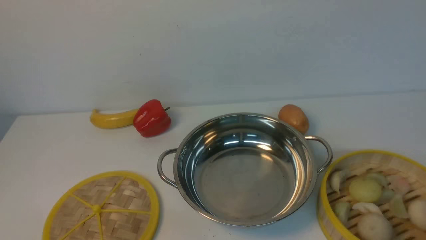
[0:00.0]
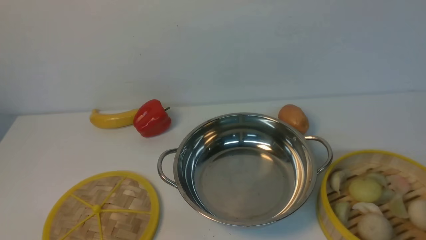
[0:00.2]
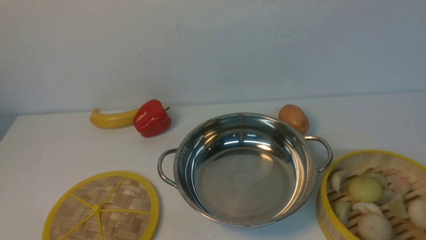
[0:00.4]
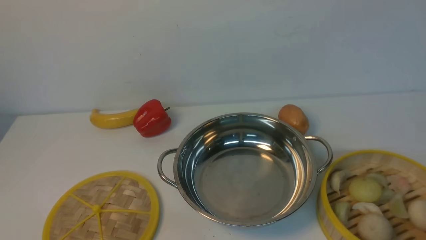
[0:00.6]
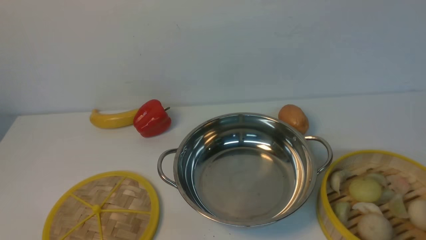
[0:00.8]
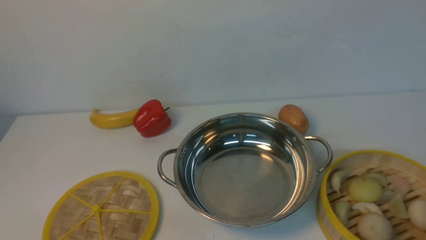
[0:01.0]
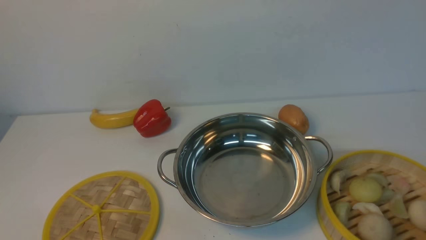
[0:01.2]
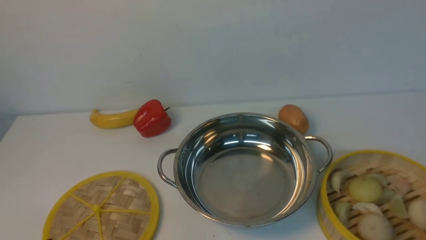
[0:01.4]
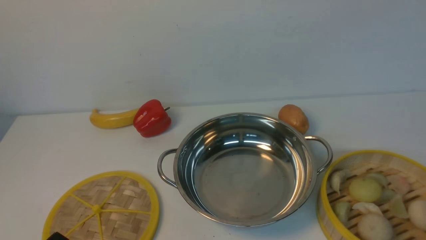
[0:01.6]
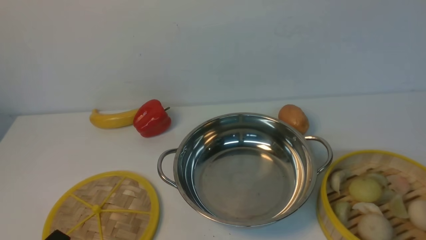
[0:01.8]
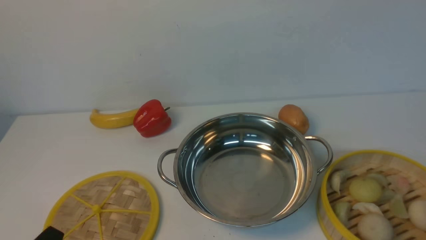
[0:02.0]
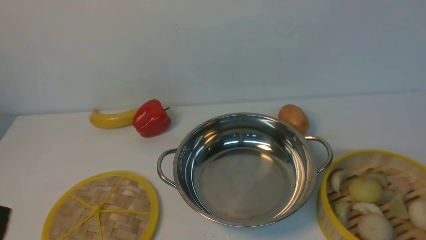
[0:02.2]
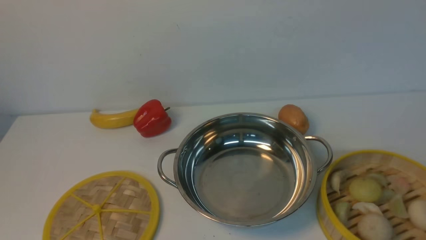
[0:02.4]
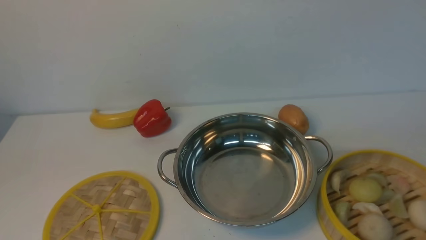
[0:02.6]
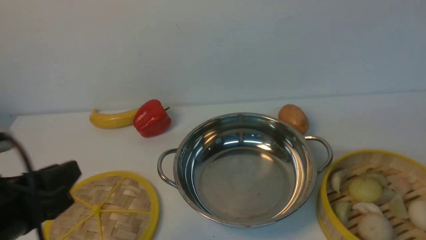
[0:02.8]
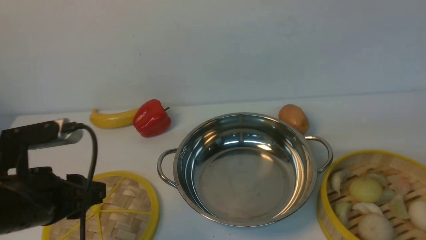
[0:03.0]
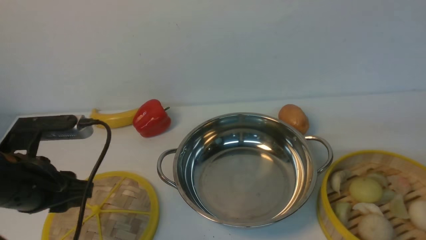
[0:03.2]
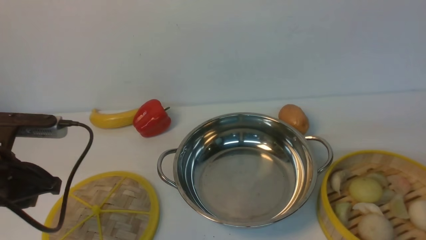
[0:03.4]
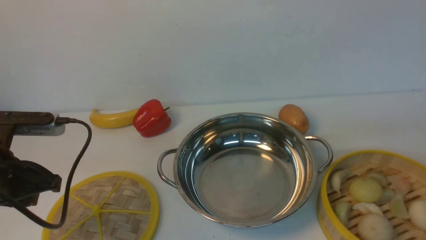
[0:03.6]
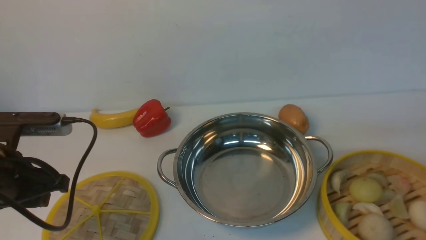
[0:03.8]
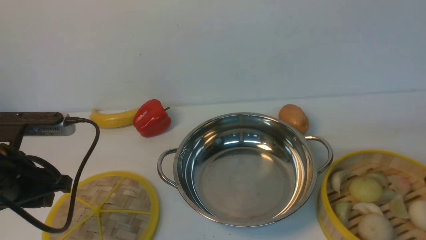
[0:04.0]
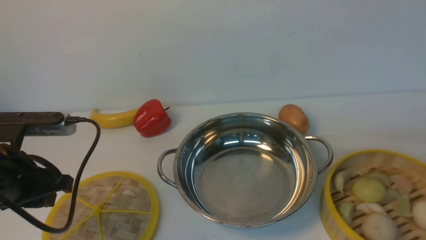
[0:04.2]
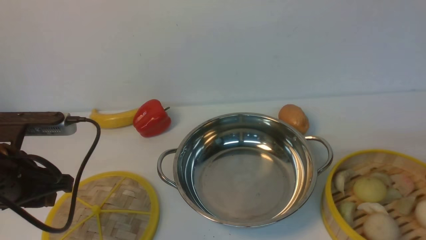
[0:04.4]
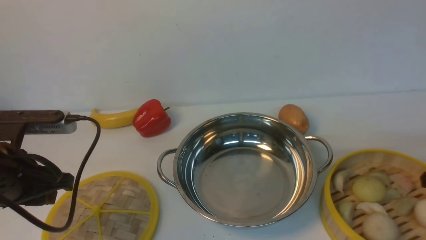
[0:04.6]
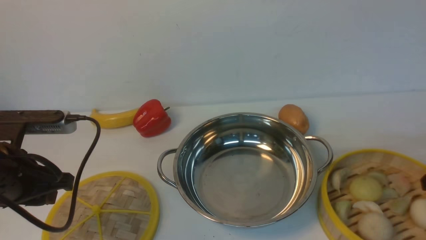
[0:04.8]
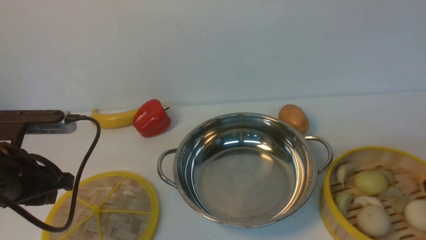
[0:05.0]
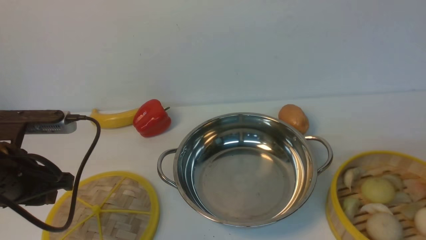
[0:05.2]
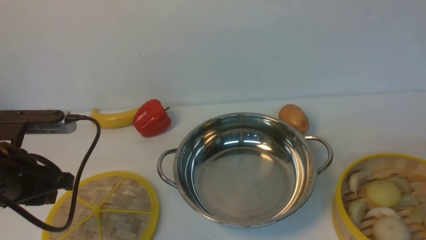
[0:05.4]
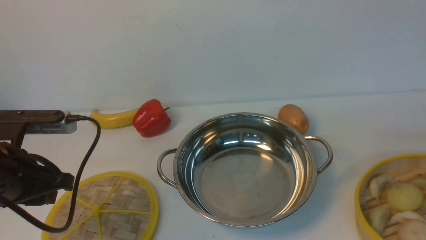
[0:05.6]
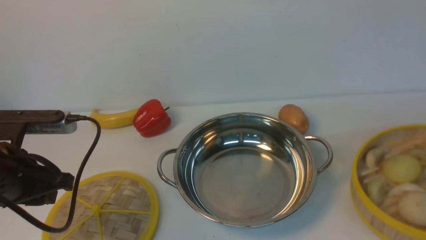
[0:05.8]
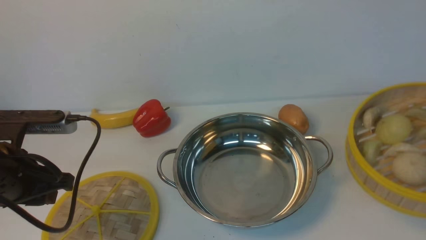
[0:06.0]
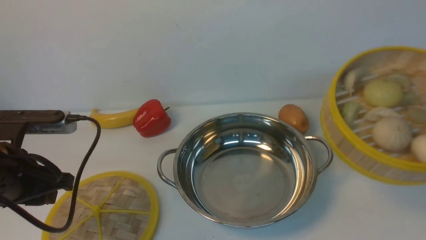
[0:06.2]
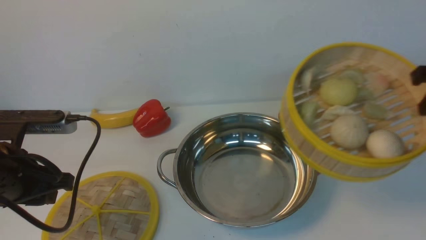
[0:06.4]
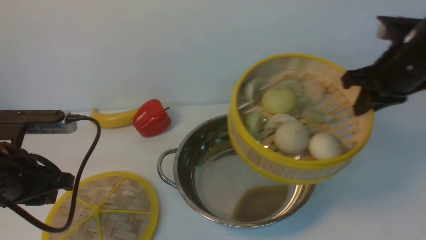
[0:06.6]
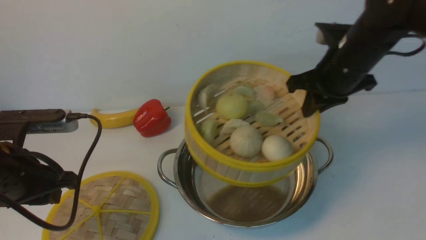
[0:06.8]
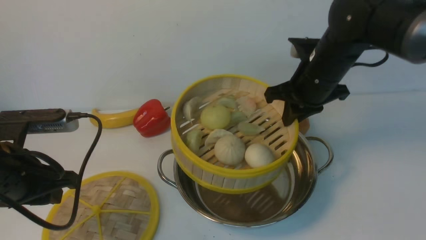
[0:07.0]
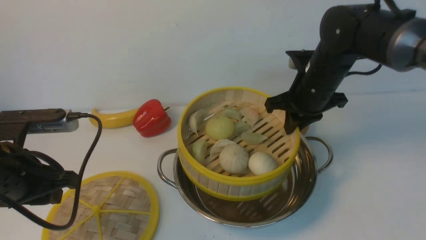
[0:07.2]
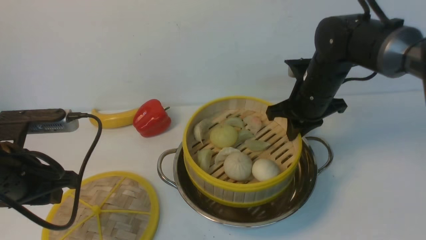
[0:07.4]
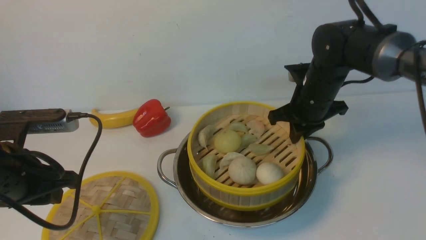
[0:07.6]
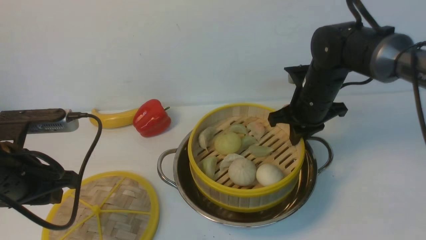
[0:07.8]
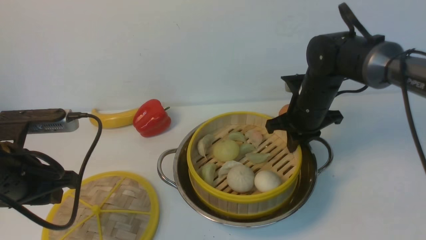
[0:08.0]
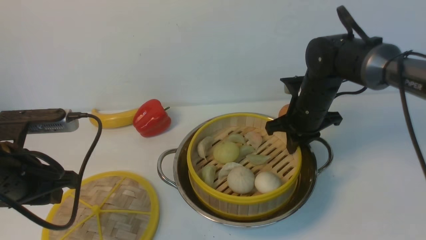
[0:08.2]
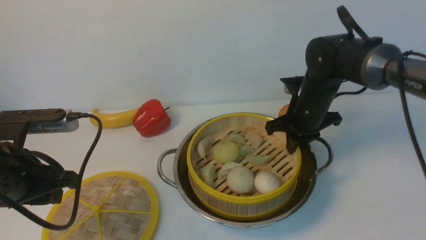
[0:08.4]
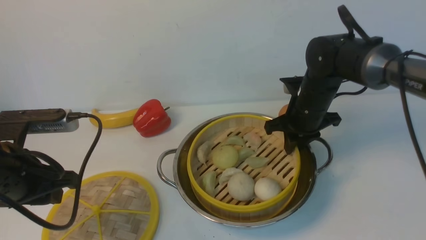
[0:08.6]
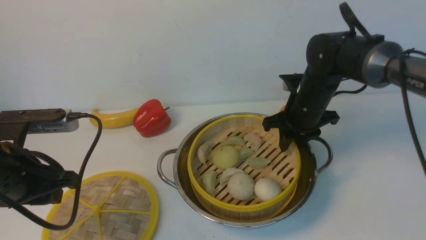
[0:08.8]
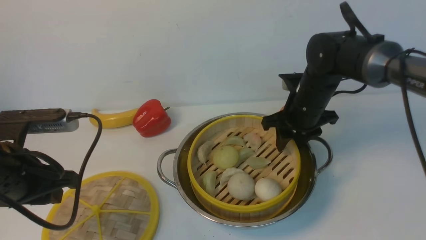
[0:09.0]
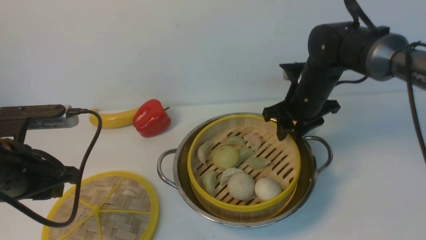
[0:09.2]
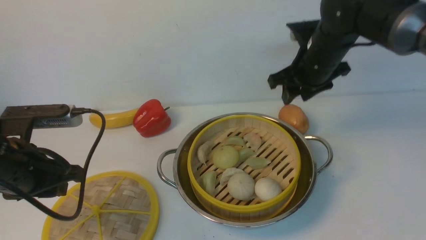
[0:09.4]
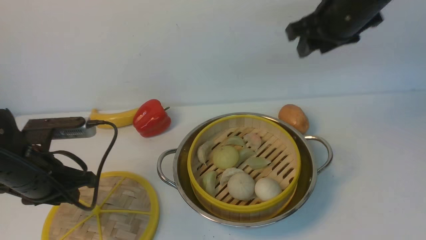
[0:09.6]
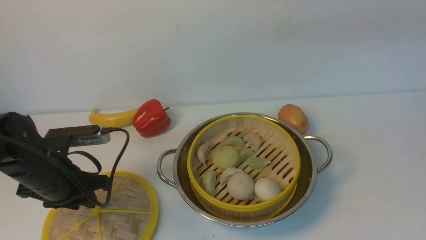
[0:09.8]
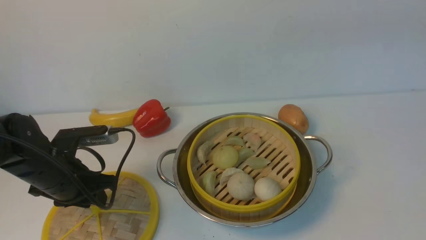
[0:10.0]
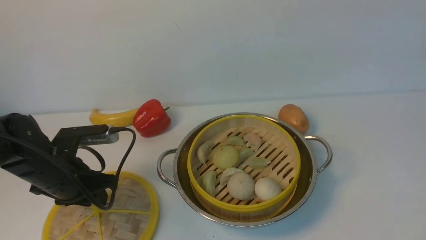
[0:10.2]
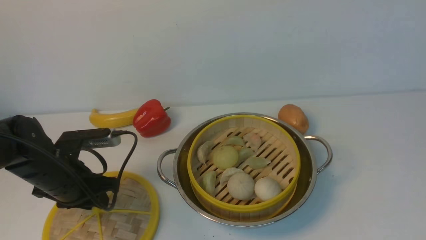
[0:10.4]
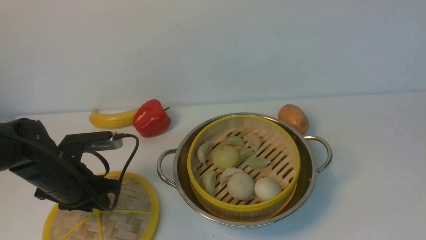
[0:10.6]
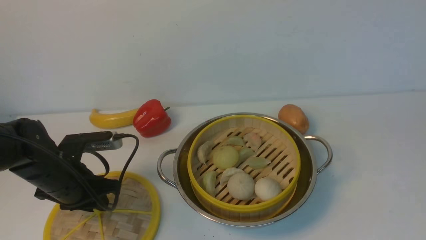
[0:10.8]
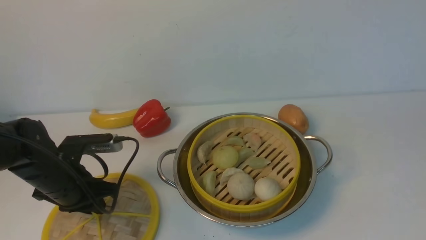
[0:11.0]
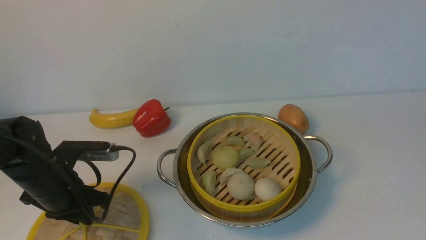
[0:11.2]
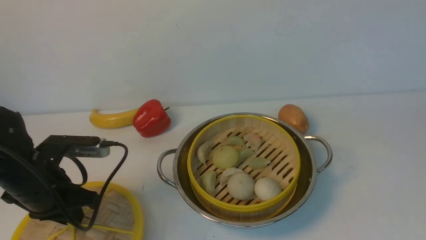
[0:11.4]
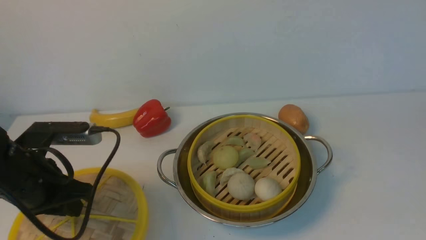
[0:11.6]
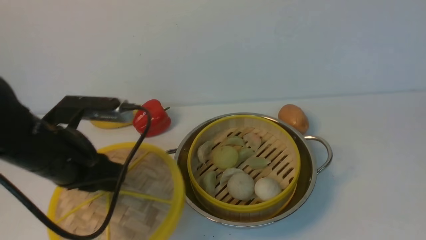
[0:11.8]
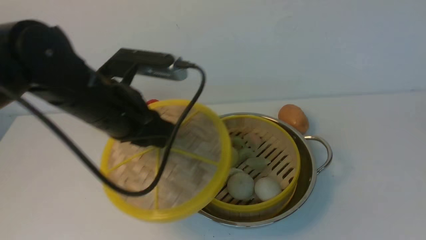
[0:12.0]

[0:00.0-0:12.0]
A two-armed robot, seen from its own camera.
Task of the whole recording: place the steamer in the pot on the white table, and put the lid on the steamer.
Step, 0:00.0 to 0:06.0: use the right arm to lift the steamer closest to it.
Step, 0:06.4 to 0:09.4: use the right arm to put the steamer into the iron steamer pot in the middle.
Step, 0:09.6 to 0:11.8: use the left arm to lift the lid of the steamer.
0:01.6 to 0:03.0: The left gripper goes about 15 cm forward and upward.
0:03.0 to 0:04.4: The left gripper shifts by about 5 cm. The right gripper goes roughly 15 cm downward and forward.
0:04.4 to 0:06.0: The right gripper travels upward by approximately 15 cm, and closes its fingers.
0:06.0 to 0:07.6: The right gripper travels to the left and forward by roughly 25 cm.
0:07.6 to 0:09.0: The right gripper opens its fingers.
0:09.0 to 0:10.4: The right gripper moves backward, upward and to the right, about 50 cm. Meanwhile the left gripper goes about 10 cm downward and forward.
0:10.4 to 0:12.0: The left gripper shifts approximately 20 cm upward and to the right; the right gripper travels backward by about 5 cm.

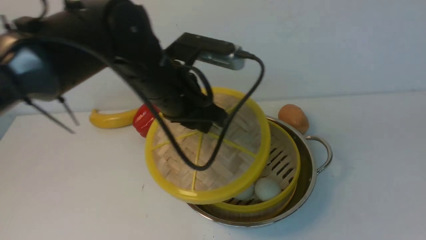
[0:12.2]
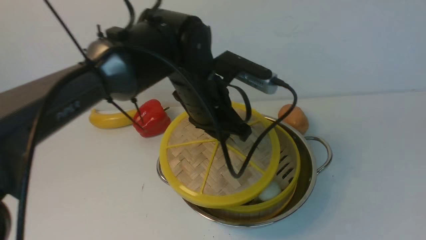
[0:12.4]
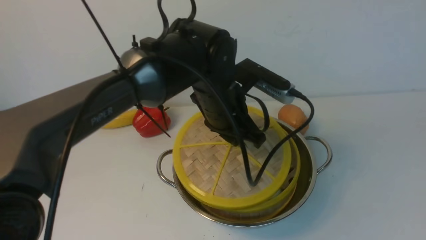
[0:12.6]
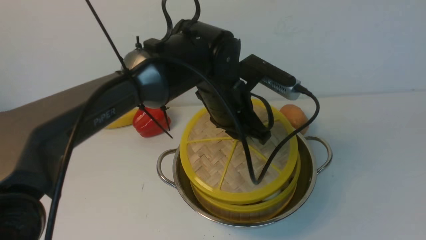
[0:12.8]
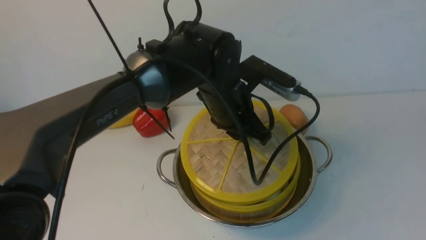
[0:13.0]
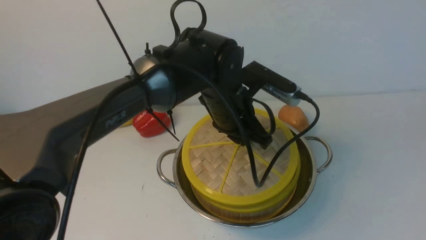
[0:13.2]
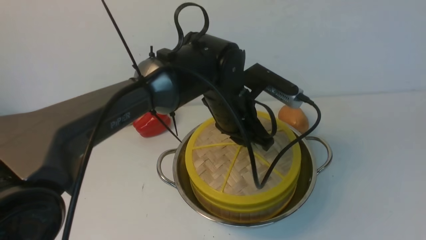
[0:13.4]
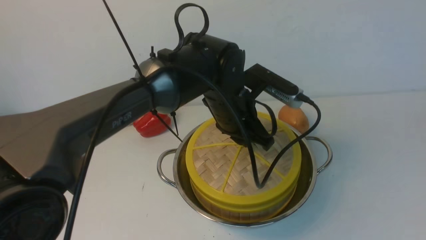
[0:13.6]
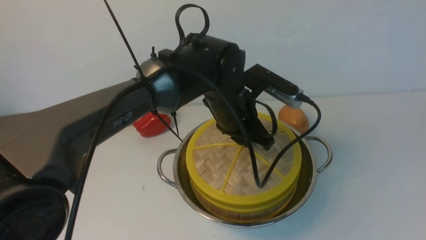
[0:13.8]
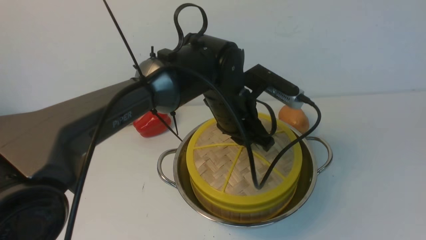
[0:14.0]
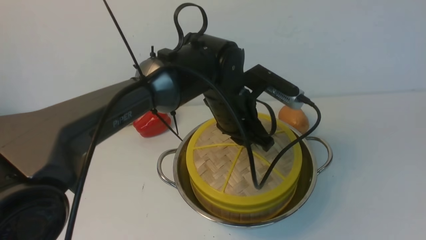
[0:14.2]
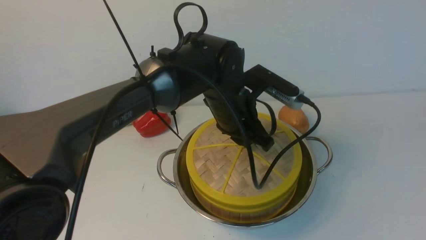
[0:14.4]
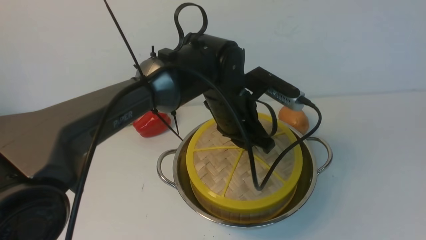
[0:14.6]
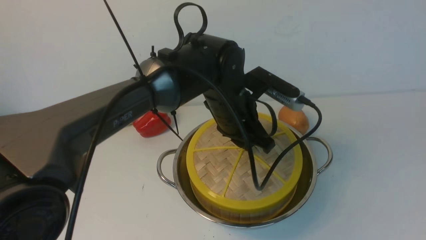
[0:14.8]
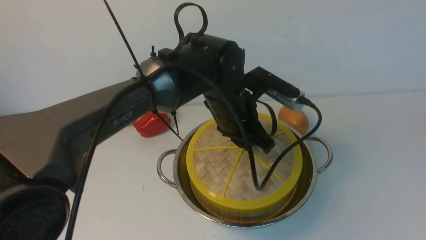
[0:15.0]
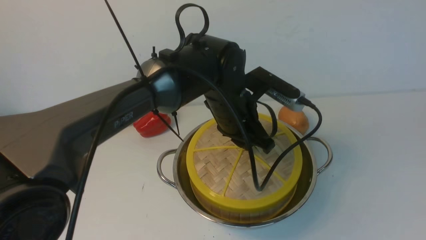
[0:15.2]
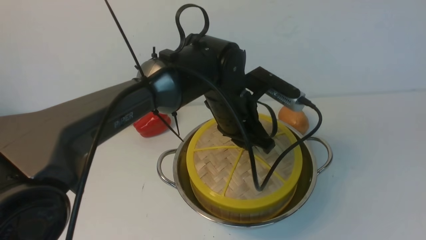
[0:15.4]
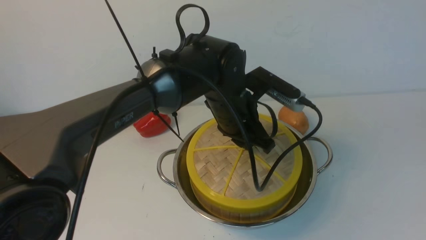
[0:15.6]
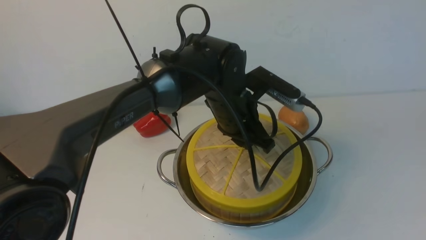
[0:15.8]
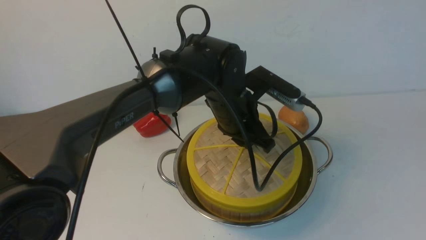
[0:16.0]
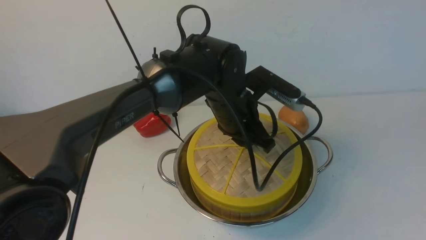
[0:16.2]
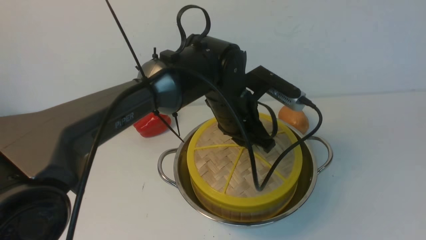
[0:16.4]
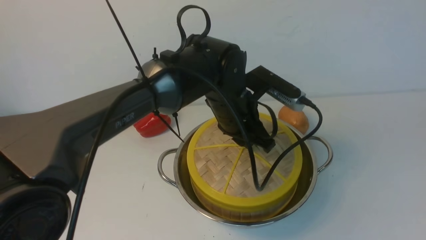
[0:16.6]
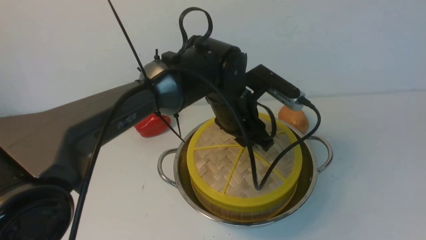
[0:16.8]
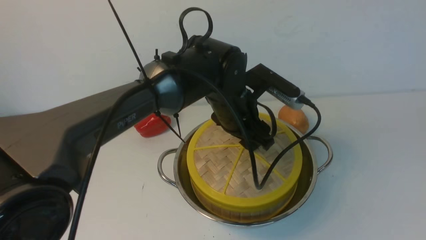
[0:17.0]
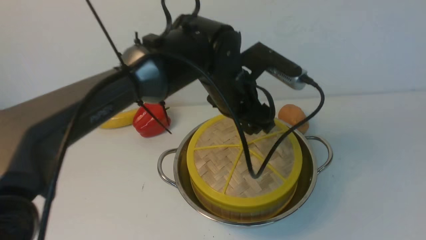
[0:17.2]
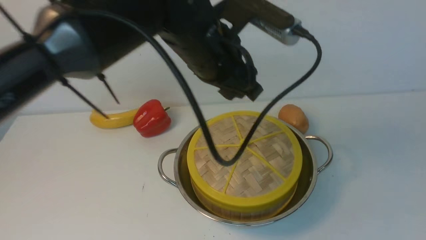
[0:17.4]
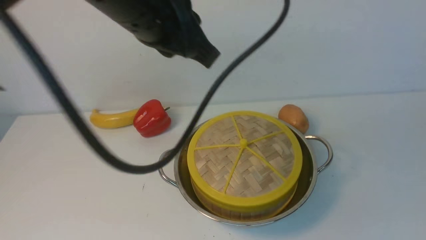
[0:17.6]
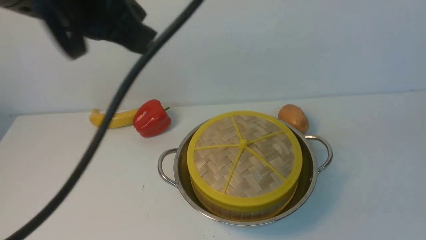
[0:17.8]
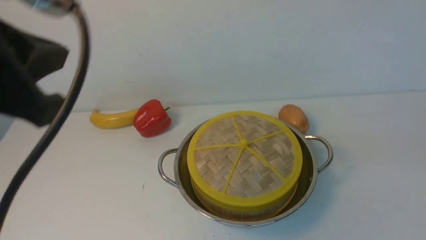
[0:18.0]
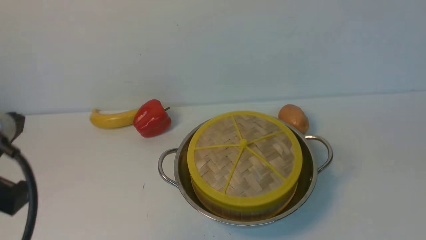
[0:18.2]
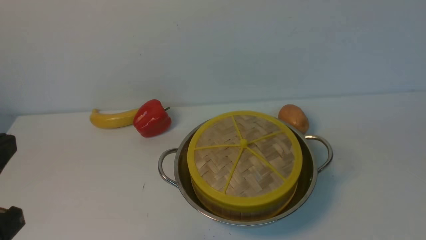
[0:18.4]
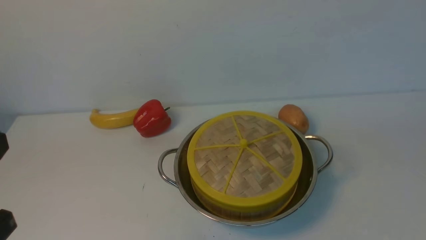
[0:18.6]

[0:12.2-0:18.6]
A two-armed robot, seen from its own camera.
Task of the whole recording: place the steamer in the pot on the white table, and put the lid on the steamer.
Step, 0:12.2 to 0:17.4: use the left arm to place the steamer lid on the steamer.
0:12.2 to 0:13.8: The left gripper shifts approximately 10 cm to the right and downward.
0:13.8 to 0:15.4: Neither gripper changes place.
0:15.4 to 0:17.0: The left gripper opens up.
0:17.0 to 0:18.6: The left gripper is displaced backward and to the left by roughly 40 cm, and closes its fingers; the right gripper shifts approximately 10 cm downward, and closes up.
